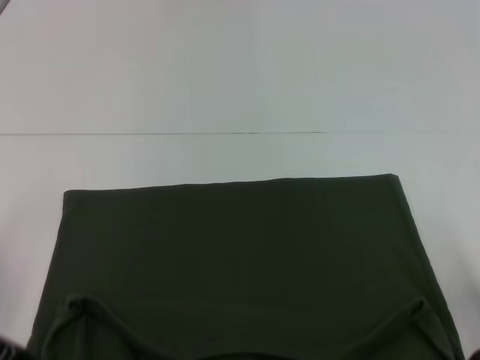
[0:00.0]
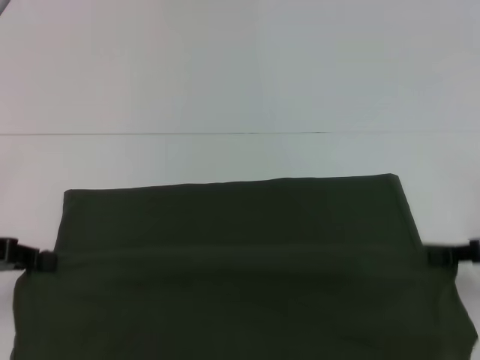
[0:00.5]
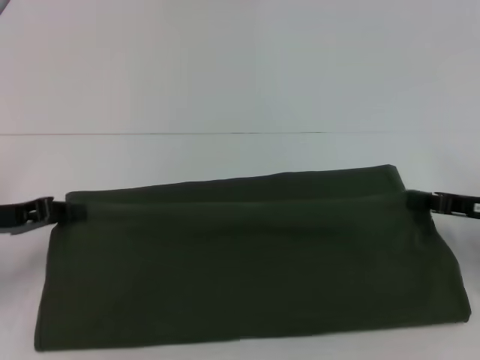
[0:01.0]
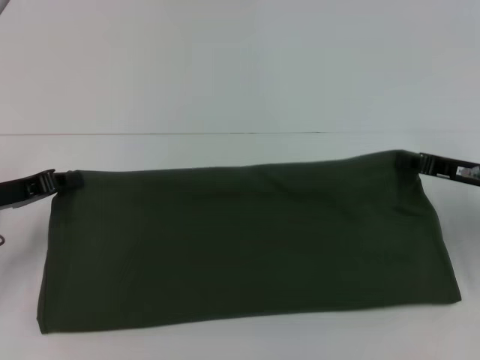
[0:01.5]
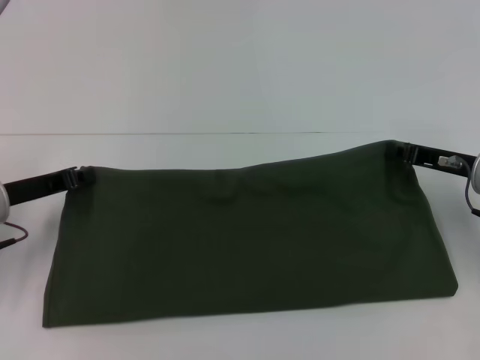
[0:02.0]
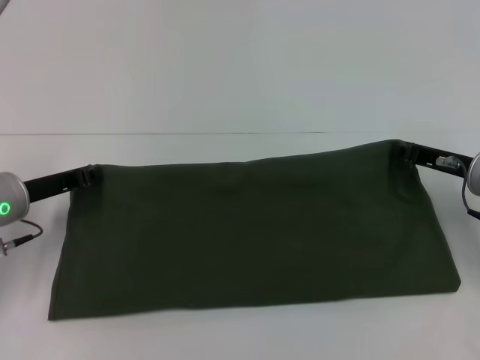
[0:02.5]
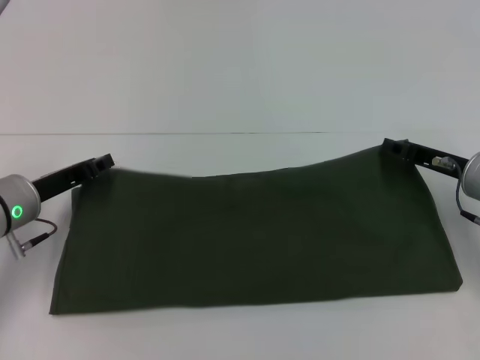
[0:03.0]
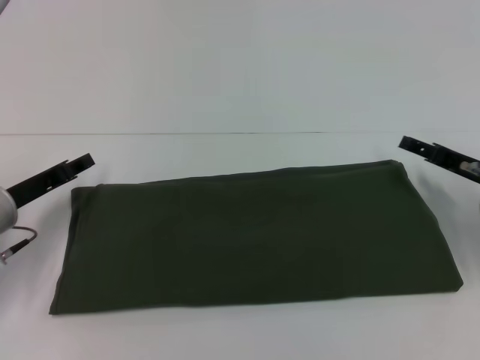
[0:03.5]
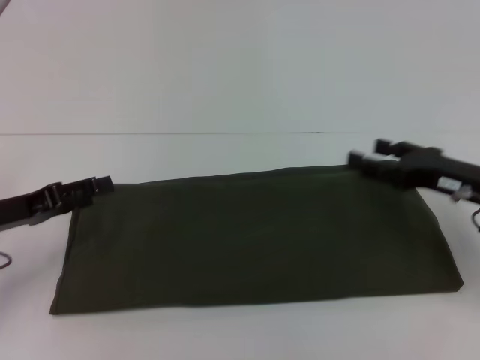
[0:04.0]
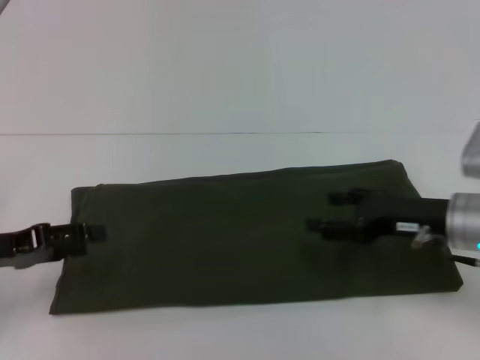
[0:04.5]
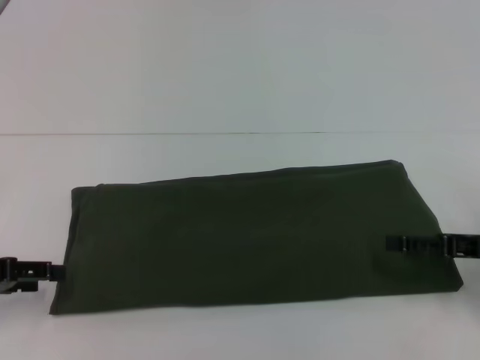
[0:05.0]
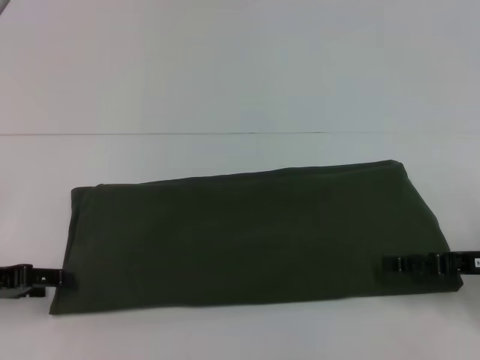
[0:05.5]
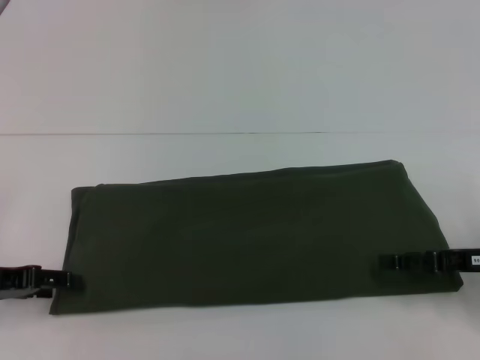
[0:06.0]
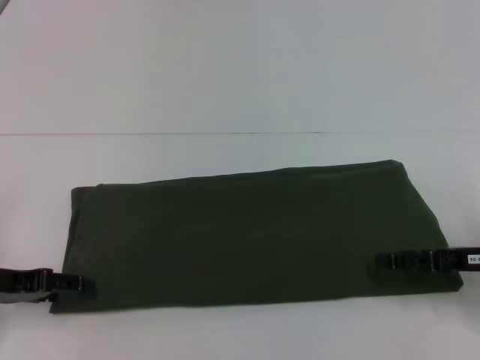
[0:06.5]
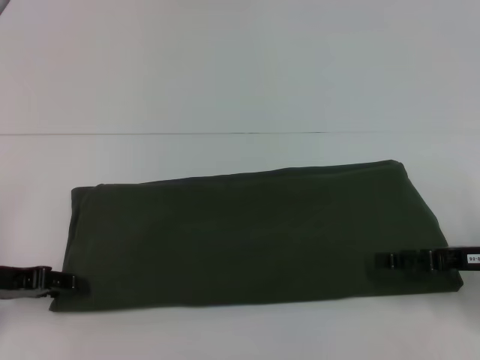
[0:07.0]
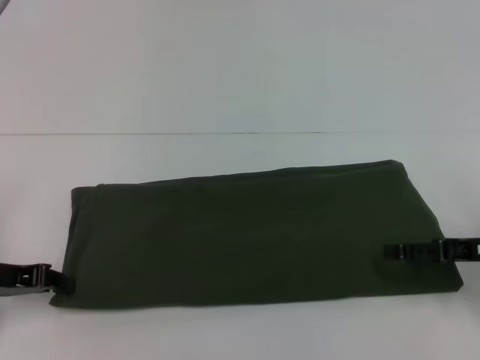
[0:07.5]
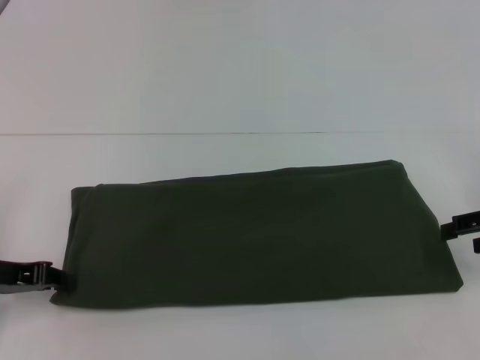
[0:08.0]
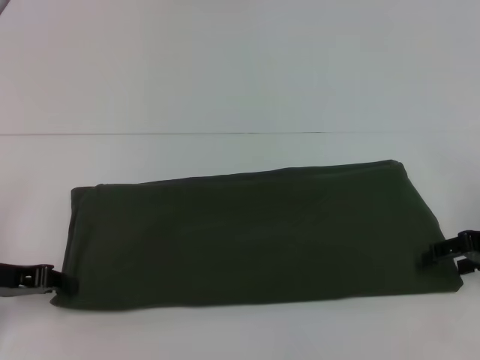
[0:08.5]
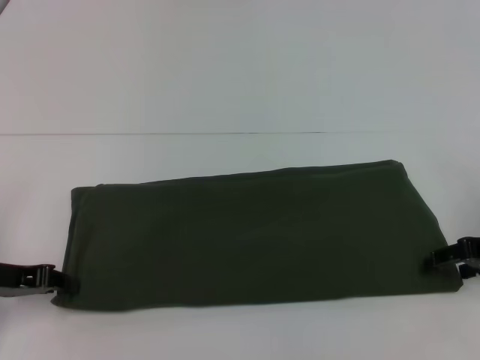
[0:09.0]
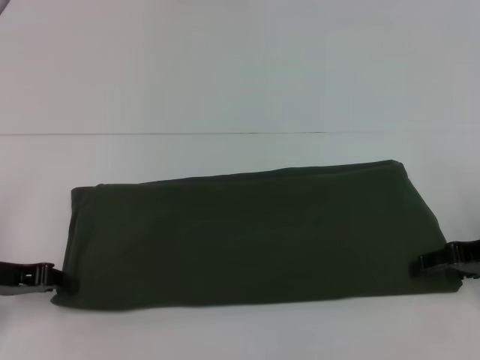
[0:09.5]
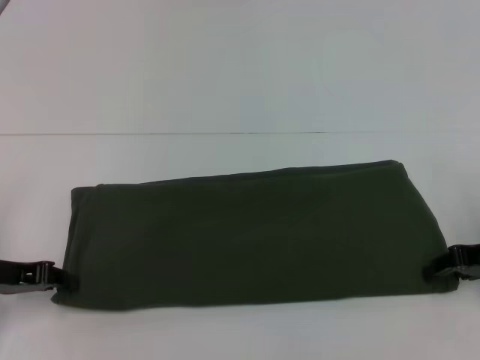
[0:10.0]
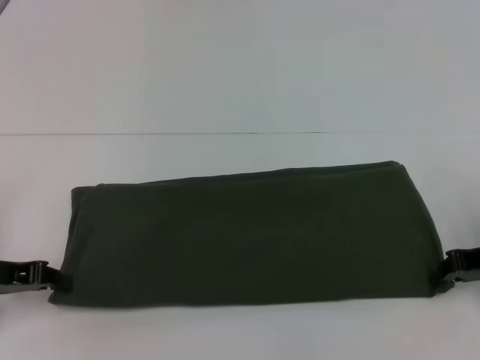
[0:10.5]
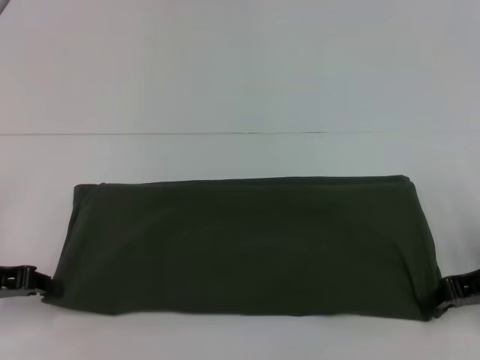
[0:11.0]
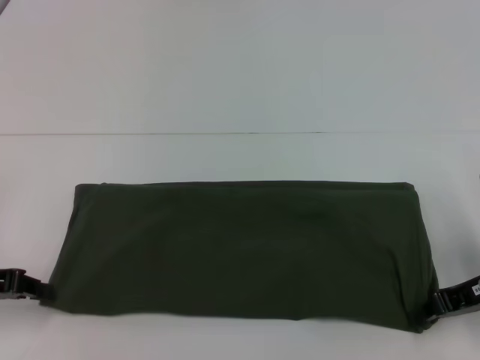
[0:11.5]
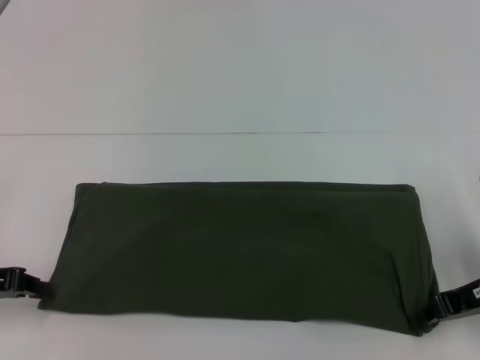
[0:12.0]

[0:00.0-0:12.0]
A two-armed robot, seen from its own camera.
Step, 0:00.0 to 0:03.5: Fold the clothes with your left hand.
Step, 0:00.0 to 0:03.5: Fold the clothes with your right hand.
0:00.0 to 0:02.0: The grippers both shift forward by roughly 10 cm.
0:02.0 to 0:04.0: The left gripper opens up, while the right gripper opens its fingers.
0:04.0 to 0:06.0: The right gripper ends up roughly 5 cm from where it was.
0:06.0 to 0:08.0: The right gripper travels upward by roughly 5 cm. The left gripper closes.
0:08.0 to 0:10.0: The right gripper moves about 5 cm.
0:10.0 to 0:12.0: The right gripper closes its fingers.

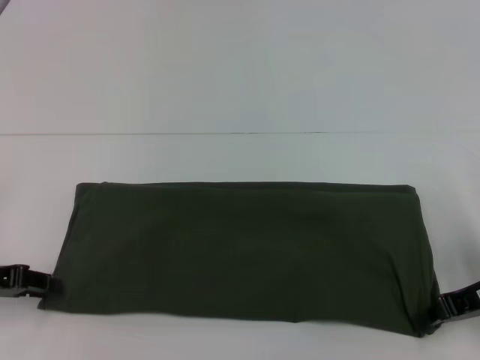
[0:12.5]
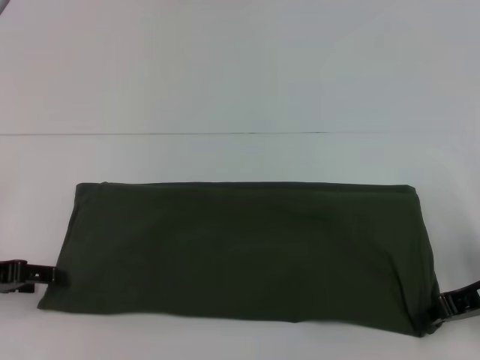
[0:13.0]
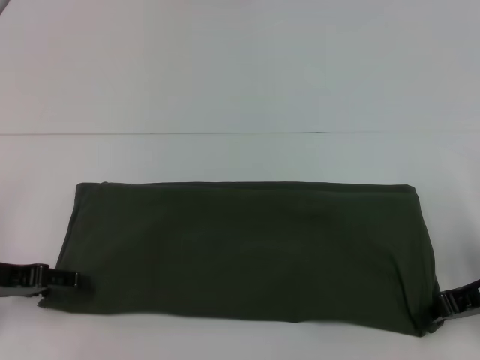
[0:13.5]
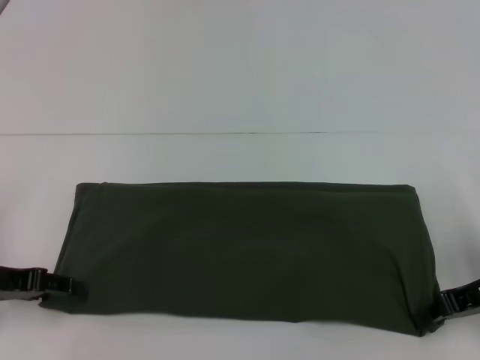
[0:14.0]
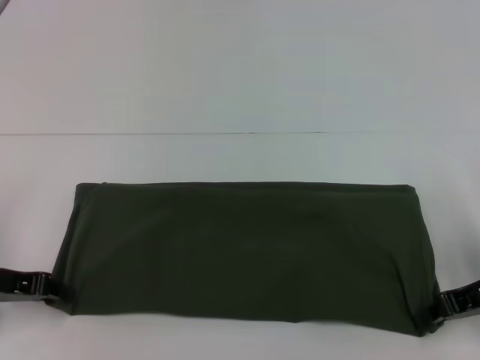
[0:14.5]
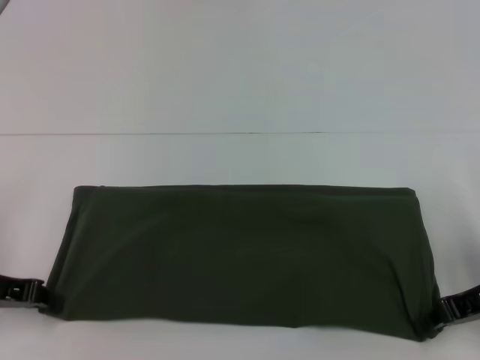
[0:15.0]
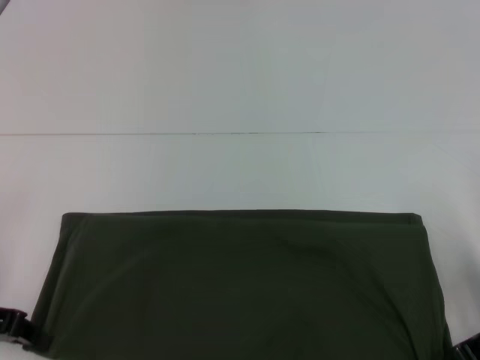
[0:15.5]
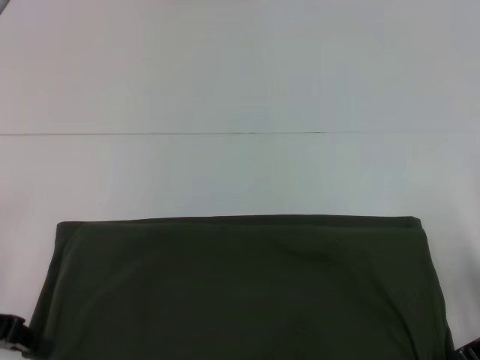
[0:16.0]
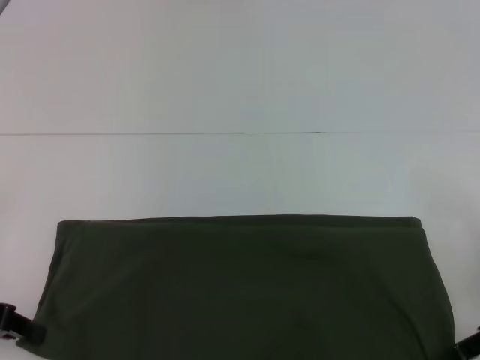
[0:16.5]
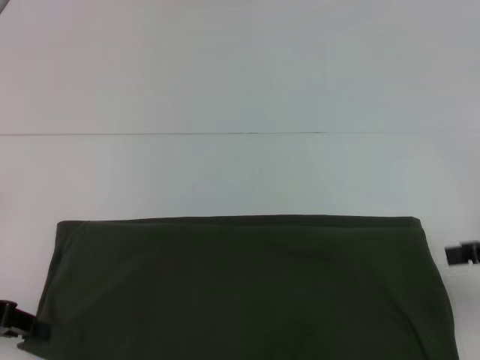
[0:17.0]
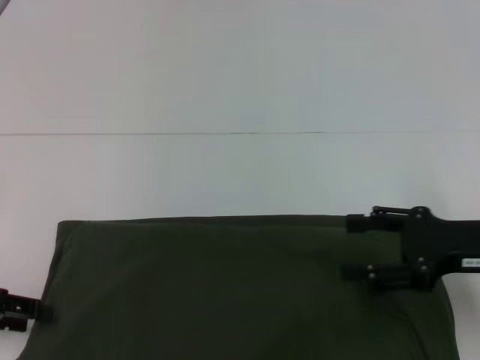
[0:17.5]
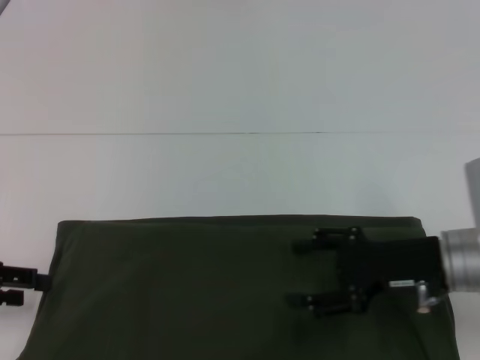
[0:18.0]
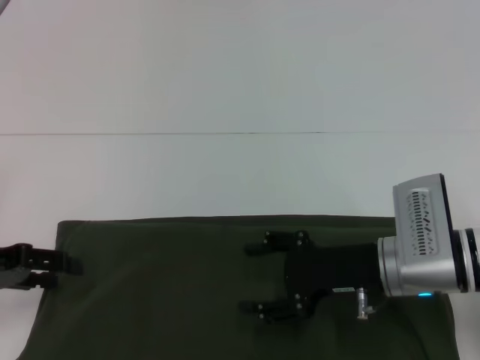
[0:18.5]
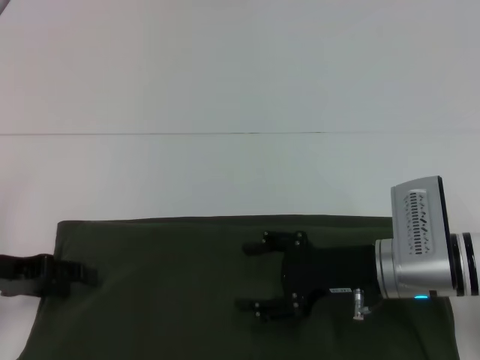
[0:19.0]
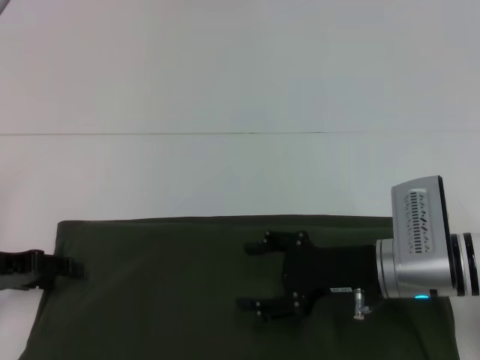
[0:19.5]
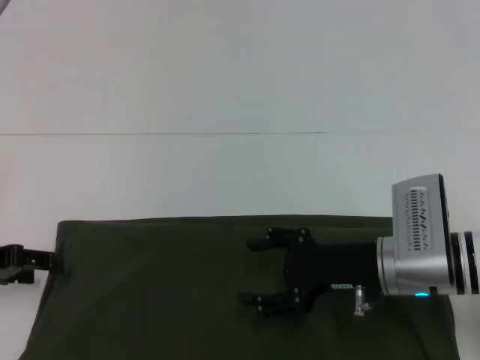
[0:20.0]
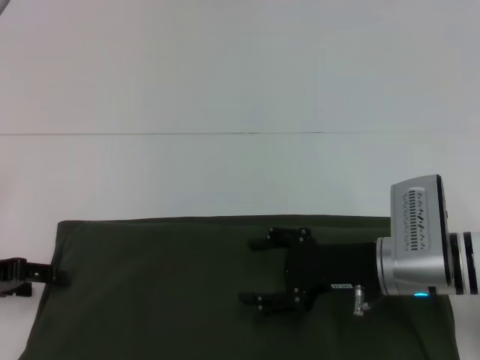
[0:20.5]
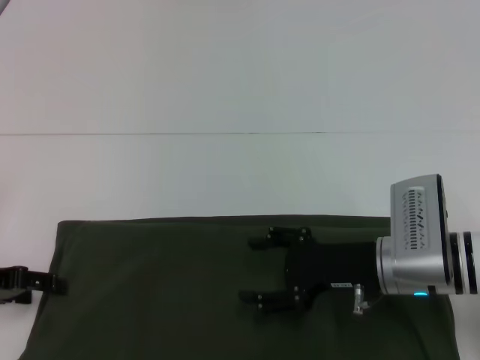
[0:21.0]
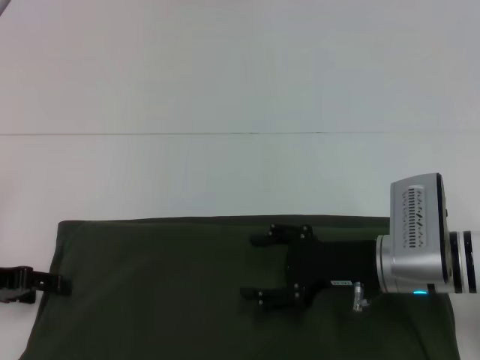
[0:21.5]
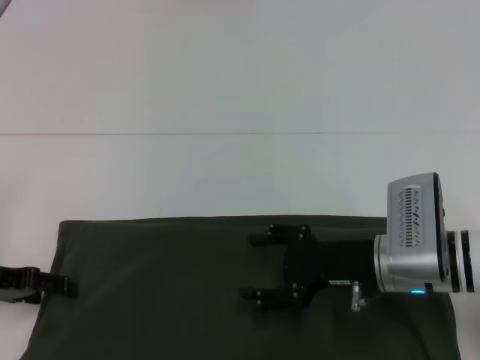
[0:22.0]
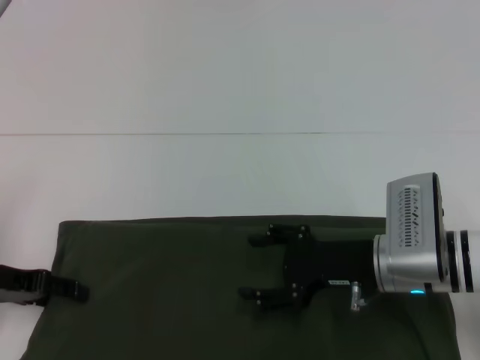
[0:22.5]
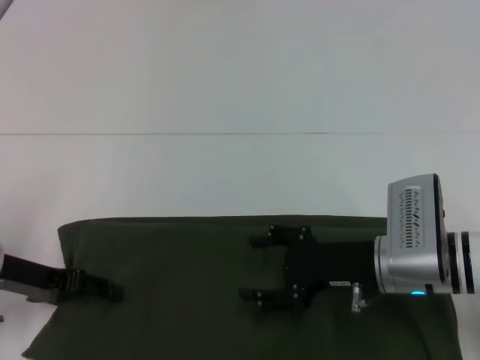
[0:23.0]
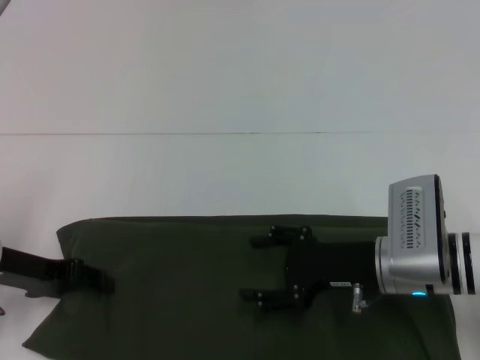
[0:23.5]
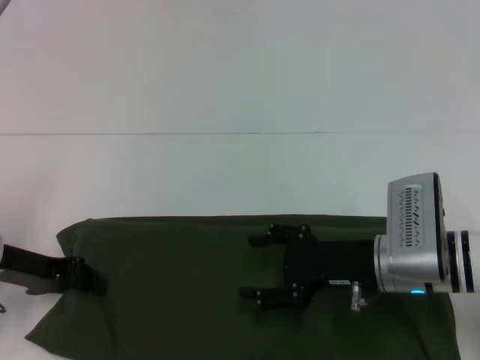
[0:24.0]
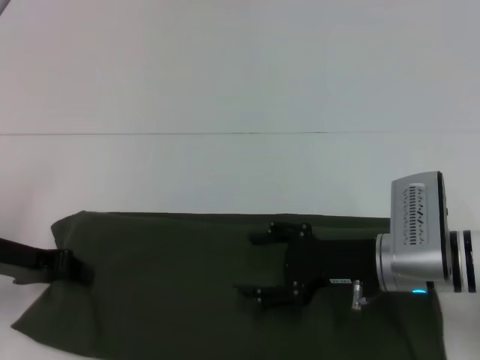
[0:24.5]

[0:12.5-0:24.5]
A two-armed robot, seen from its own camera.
Step, 0:12.5 to 0:16.5: Pull the clothes with your left hand.
Step, 0:12.5 to 0:16.5: Pull the clothes with your right hand.
0:12.5 to 0:14.5: The left gripper opens, then closes again.
0:14.5 to 0:16.5: The left gripper closes up.
0:16.5 to 0:18.5: The right gripper goes about 15 cm to the left, and opens its fingers. Meanwhile the left gripper opens.
0:18.5 to 0:22.5: There are only small adjustments of the grippers.
0:22.5 to 0:24.5: The left gripper closes.

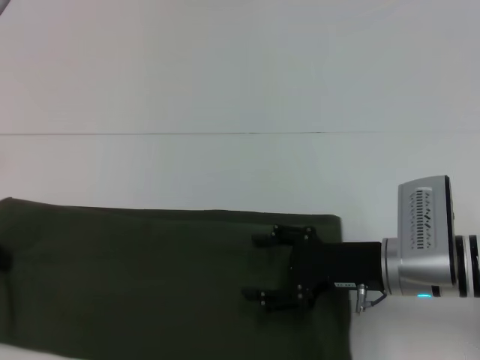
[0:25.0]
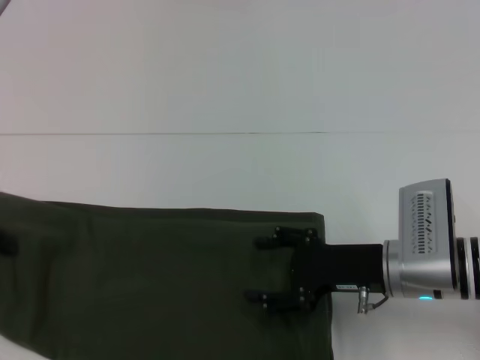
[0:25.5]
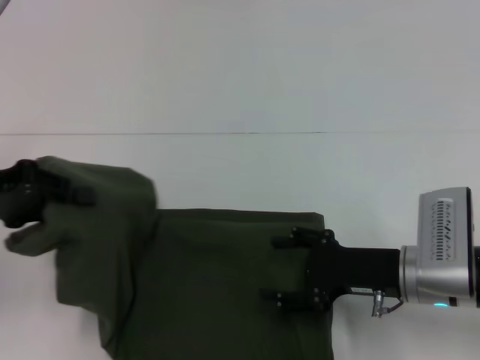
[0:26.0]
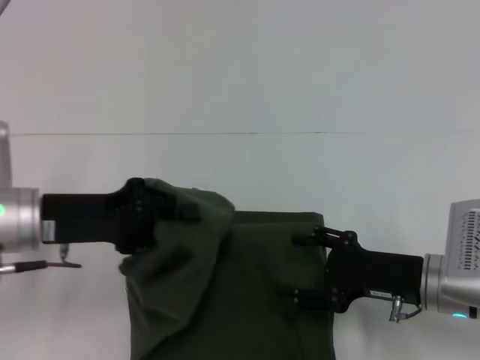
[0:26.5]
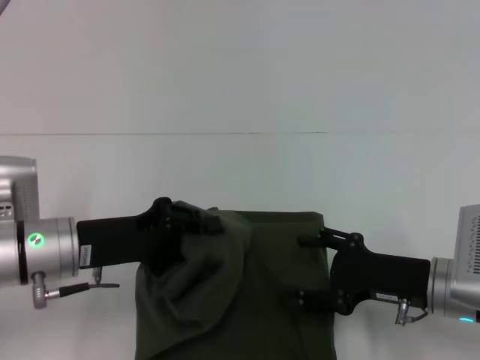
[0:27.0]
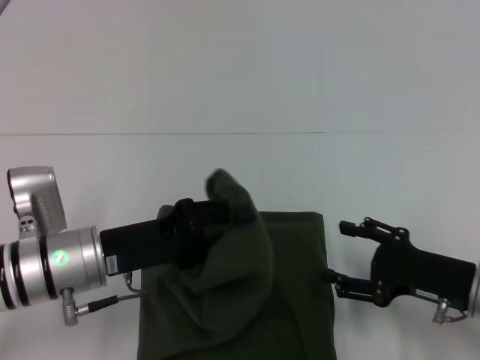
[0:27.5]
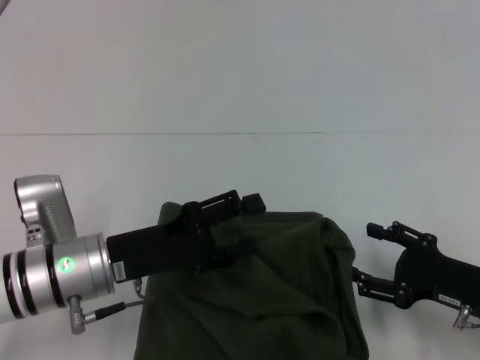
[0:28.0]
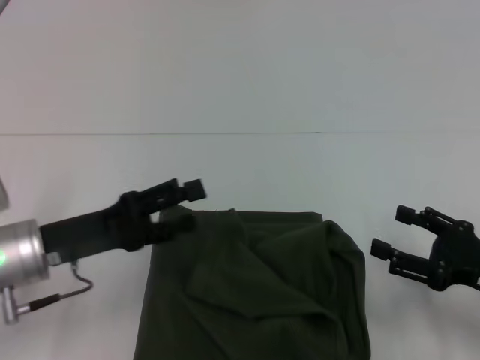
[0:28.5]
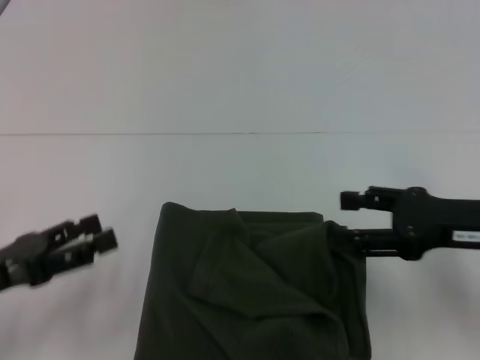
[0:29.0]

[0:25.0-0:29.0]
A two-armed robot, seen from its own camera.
Step, 0:25.0 to 0:28.0: Fold the clothes with your left hand.
0:25.0 to 0:27.0: The right gripper shifts by roughly 5 cm. The left gripper travels to the right by some 15 cm.
0:27.0 to 0:29.0: The right gripper moves upward, some 10 cm. The left gripper is displaced to the left and backward by some 10 cm, and opens its fingers.
